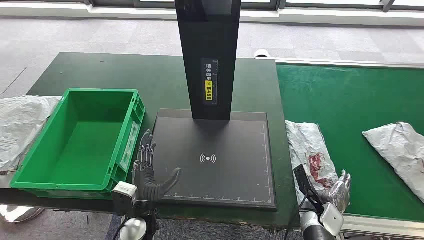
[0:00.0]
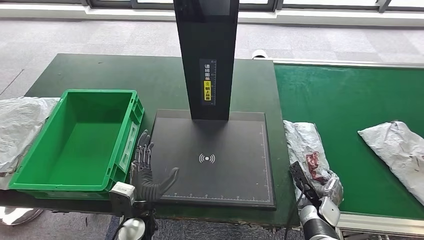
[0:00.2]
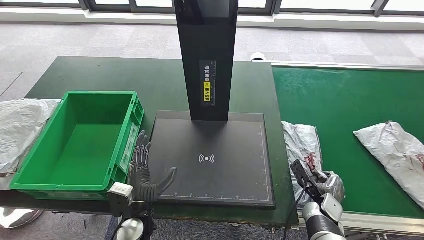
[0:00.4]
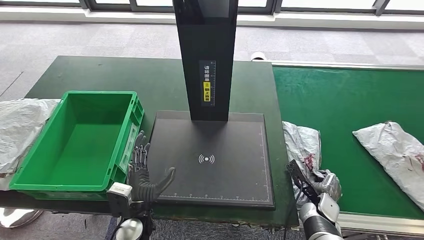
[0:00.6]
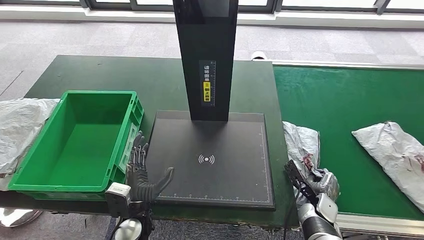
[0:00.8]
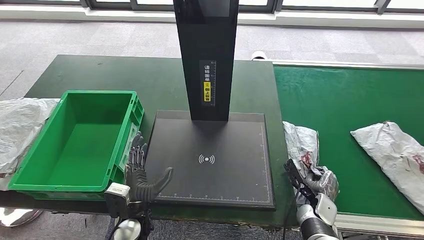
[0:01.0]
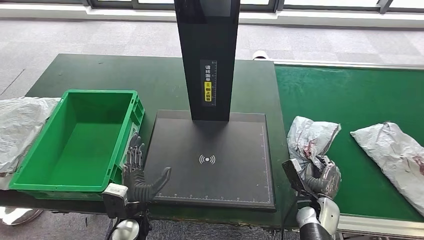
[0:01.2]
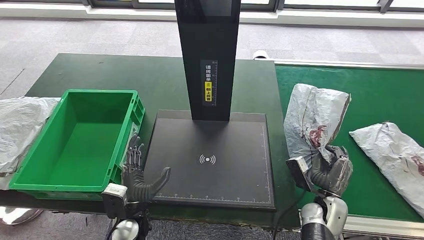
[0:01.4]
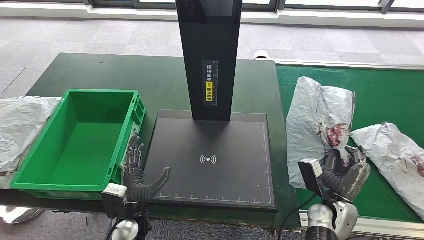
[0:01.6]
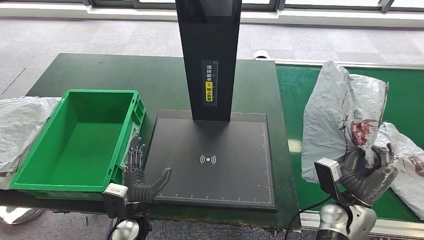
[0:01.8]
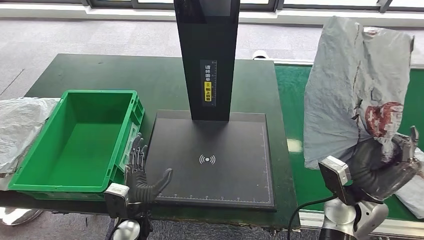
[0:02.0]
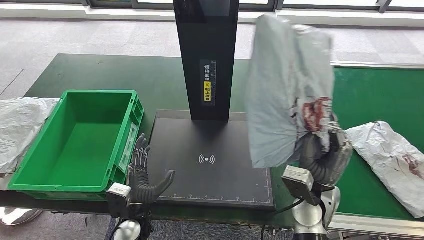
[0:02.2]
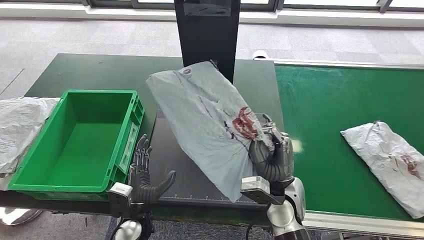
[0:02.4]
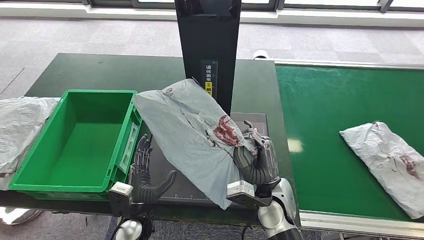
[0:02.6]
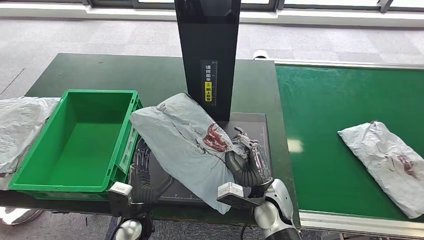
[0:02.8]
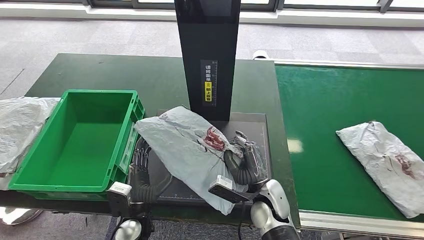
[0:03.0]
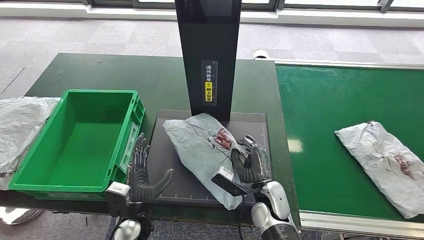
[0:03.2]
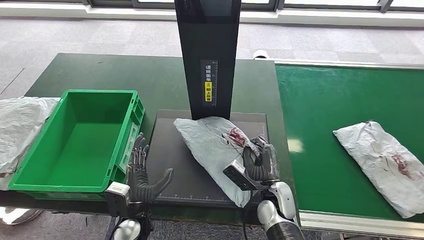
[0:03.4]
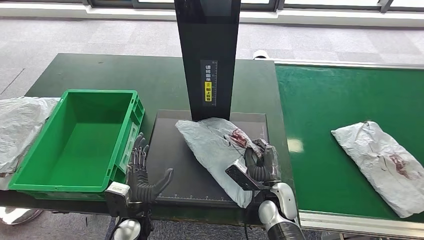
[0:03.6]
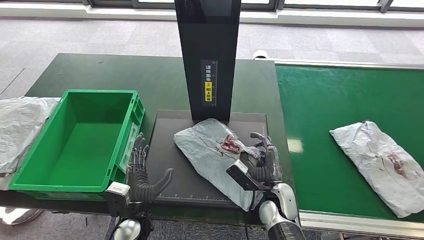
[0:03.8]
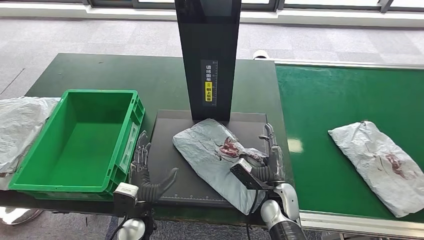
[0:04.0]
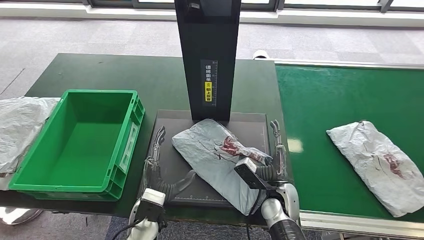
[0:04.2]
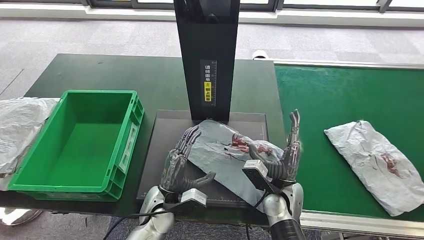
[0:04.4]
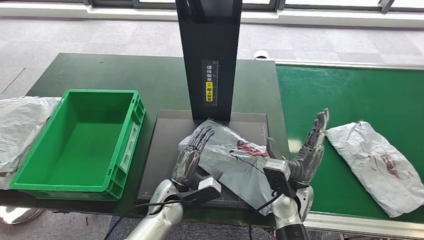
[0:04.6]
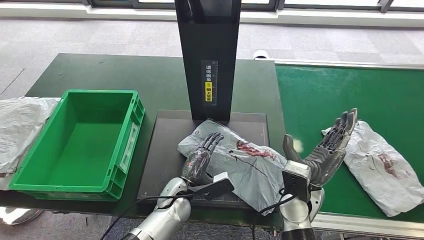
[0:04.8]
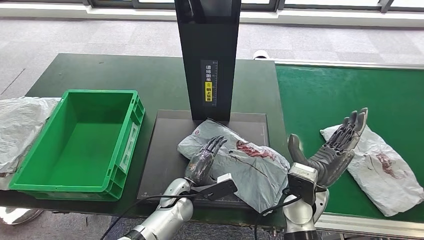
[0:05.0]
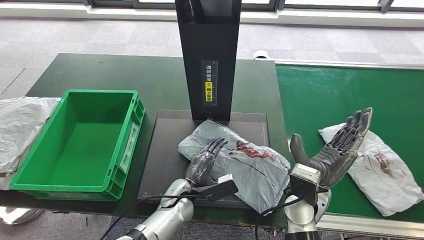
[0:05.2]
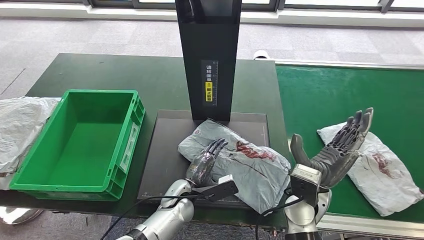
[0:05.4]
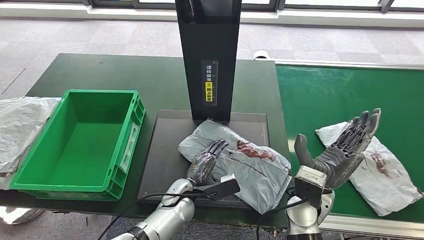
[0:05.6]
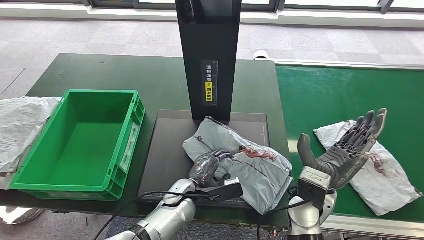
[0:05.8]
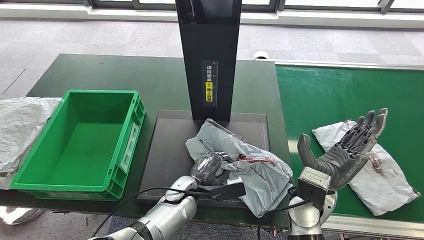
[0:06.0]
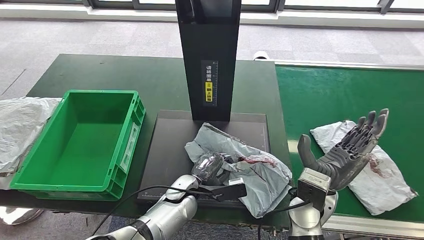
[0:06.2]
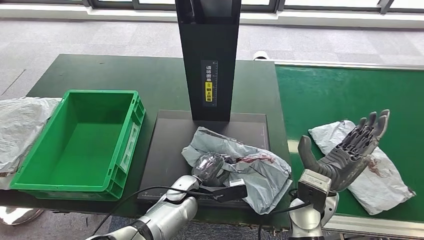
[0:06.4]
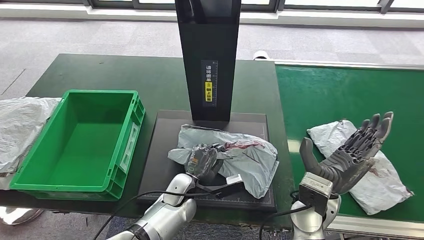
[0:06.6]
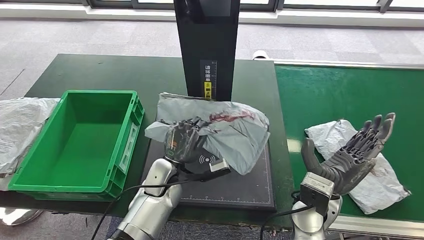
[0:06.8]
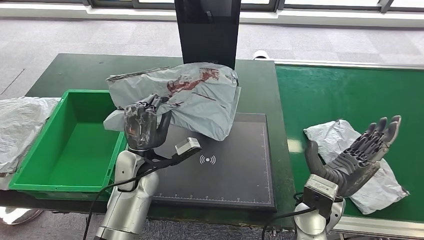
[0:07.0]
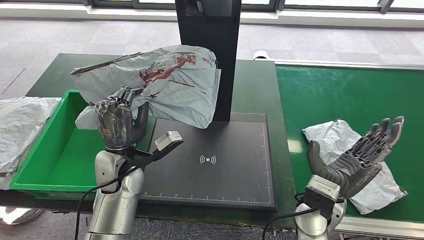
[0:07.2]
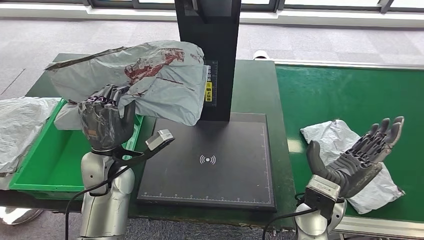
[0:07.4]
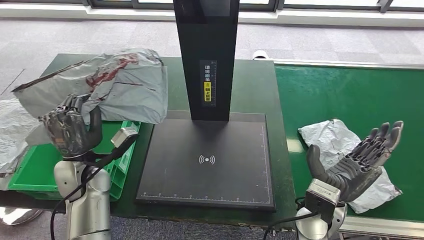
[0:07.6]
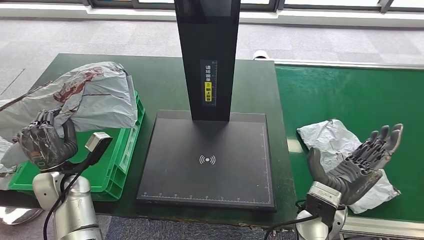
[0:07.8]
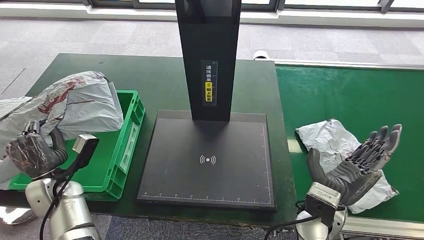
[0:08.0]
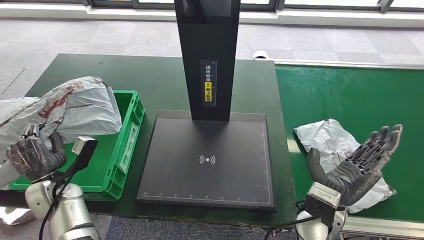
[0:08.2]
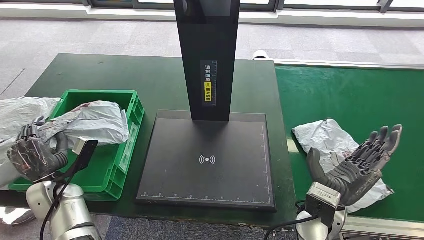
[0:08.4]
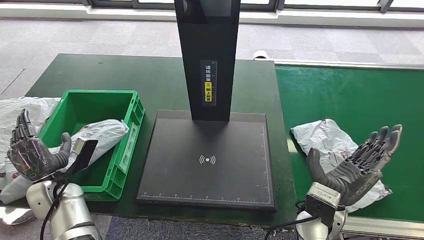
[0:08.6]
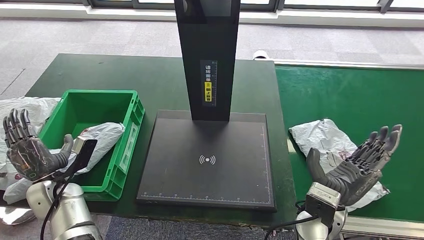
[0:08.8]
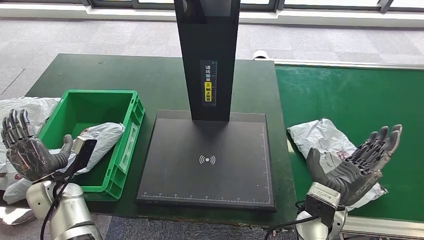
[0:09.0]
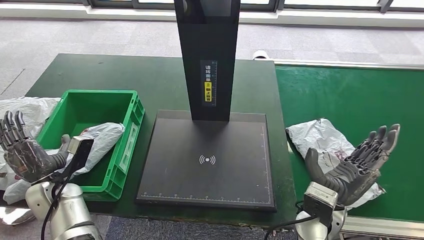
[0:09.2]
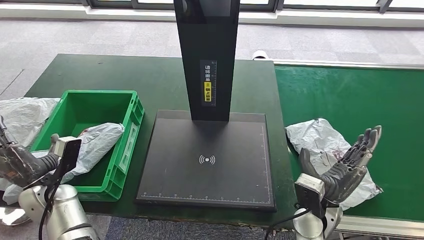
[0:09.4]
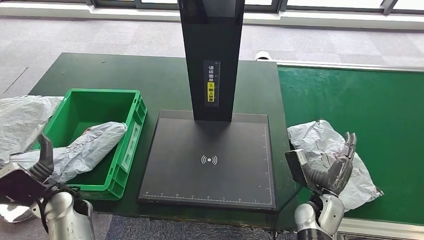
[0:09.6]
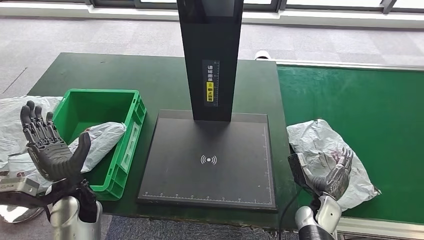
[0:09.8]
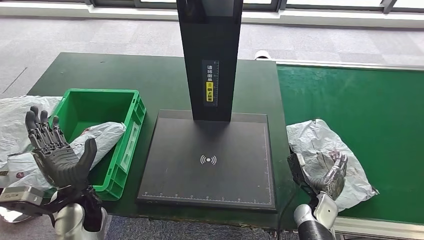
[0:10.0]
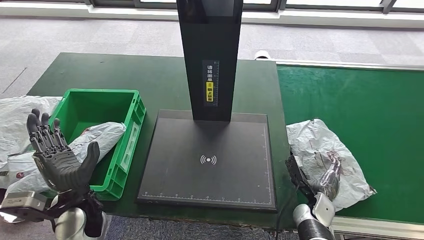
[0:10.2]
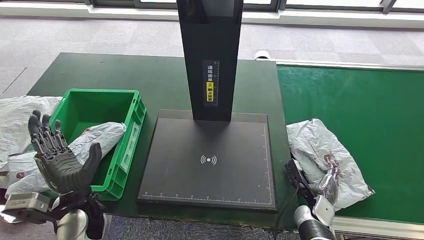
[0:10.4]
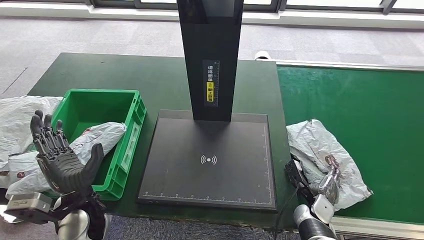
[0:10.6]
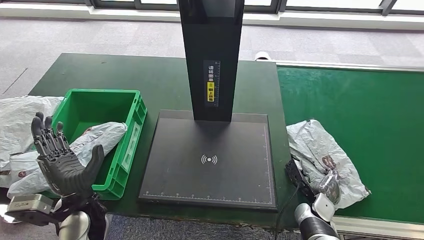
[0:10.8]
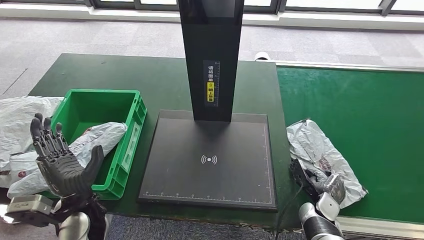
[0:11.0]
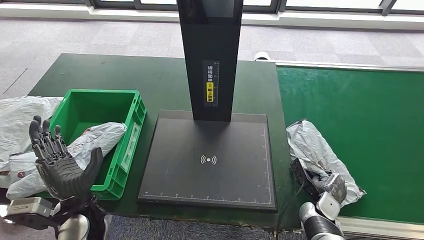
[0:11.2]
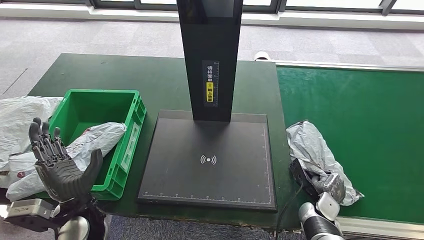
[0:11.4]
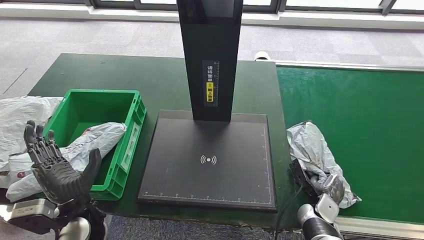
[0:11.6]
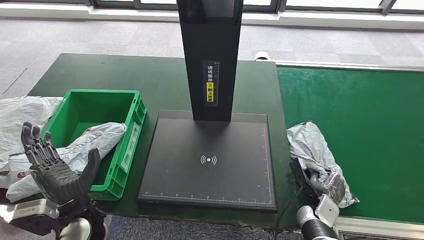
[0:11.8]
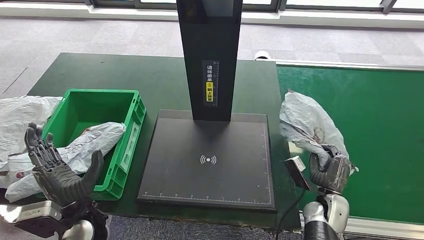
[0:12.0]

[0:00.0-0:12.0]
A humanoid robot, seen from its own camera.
Step, 0:00.0 to 0:02.0: Take the parcel off the conveyor belt.
Step, 0:02.2 to 0:05.4: Place the parcel onto the inbound machine.
Step, 0:05.6 to 0:08.0: Pick up the parcel from the inbound machine.
Step, 0:08.2 to 0:10.2: Put the parcel inside the courier box.
0:03.0 to 0:04.4: The left hand shifts by about 5 cm.

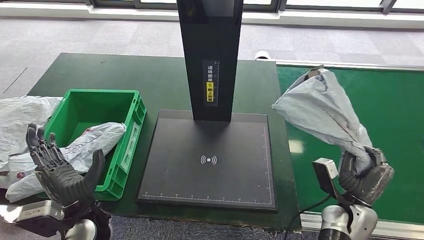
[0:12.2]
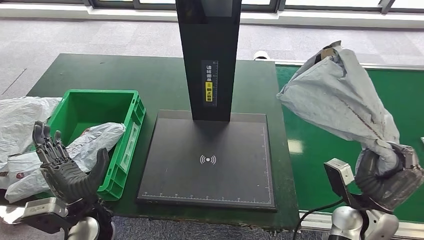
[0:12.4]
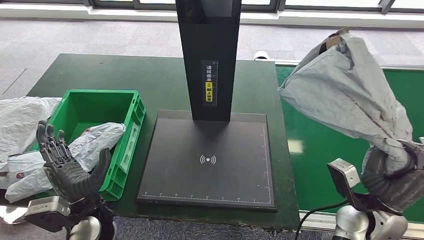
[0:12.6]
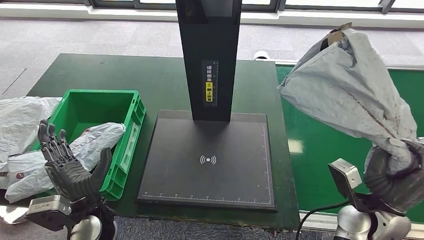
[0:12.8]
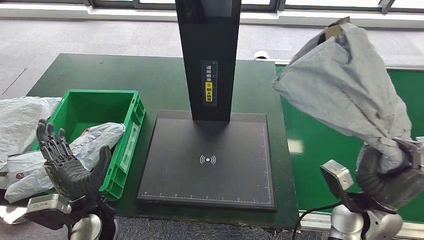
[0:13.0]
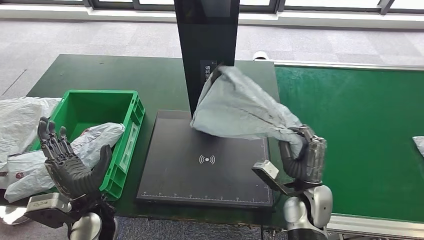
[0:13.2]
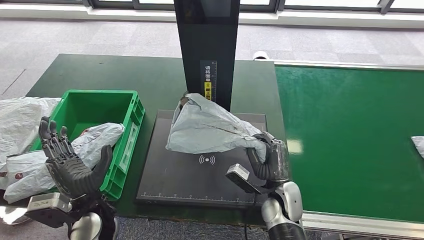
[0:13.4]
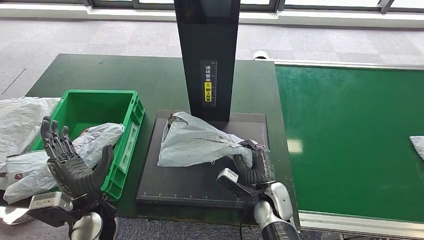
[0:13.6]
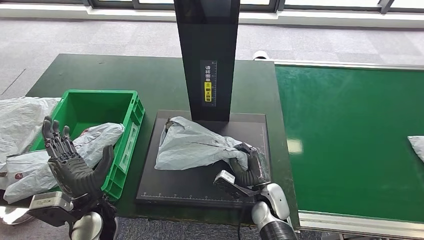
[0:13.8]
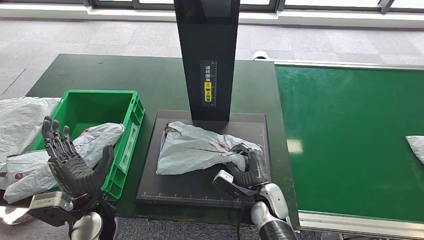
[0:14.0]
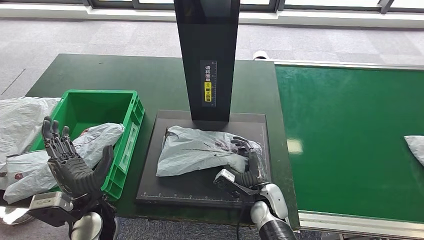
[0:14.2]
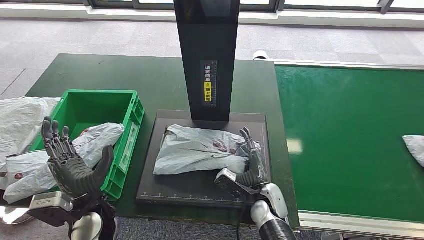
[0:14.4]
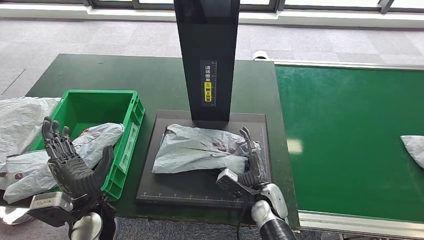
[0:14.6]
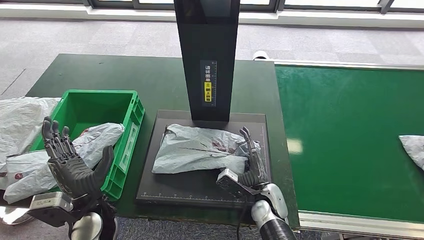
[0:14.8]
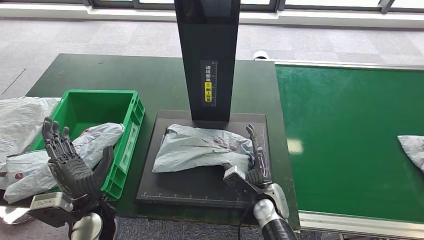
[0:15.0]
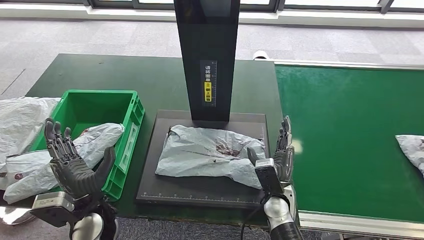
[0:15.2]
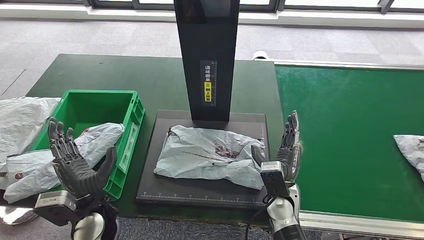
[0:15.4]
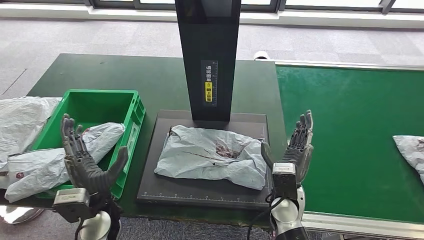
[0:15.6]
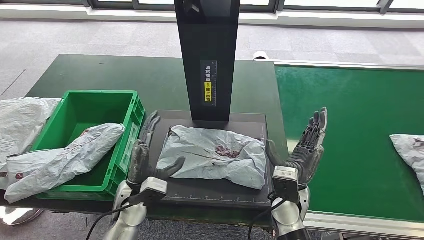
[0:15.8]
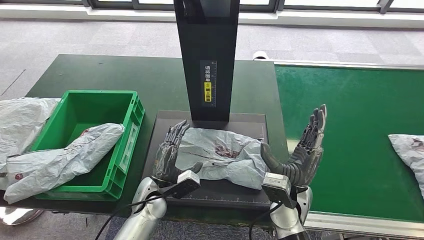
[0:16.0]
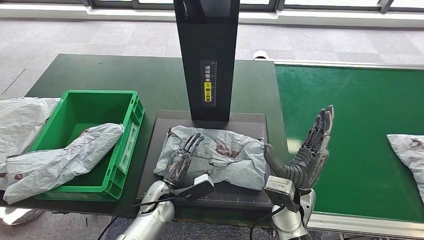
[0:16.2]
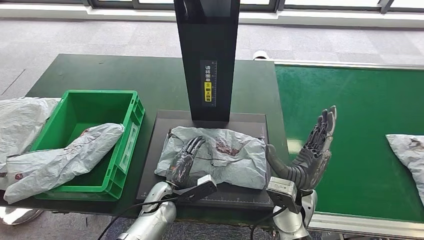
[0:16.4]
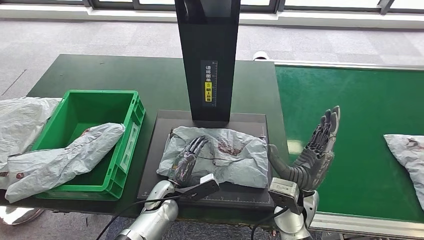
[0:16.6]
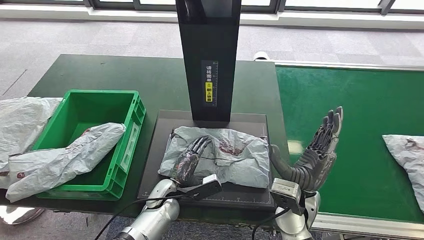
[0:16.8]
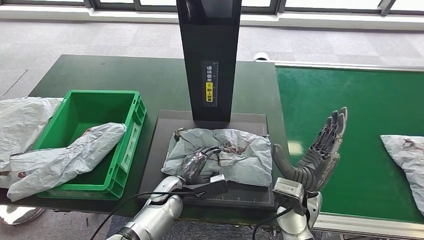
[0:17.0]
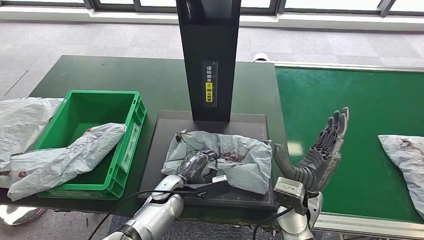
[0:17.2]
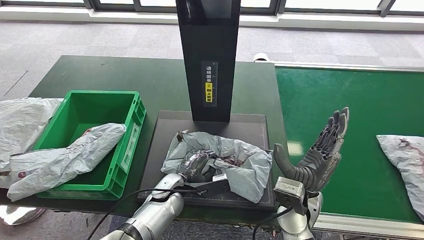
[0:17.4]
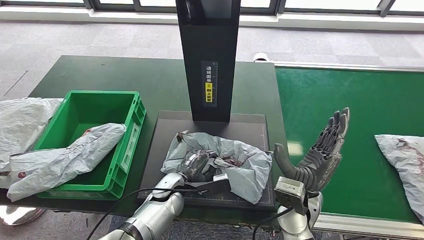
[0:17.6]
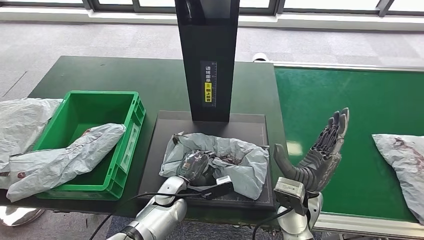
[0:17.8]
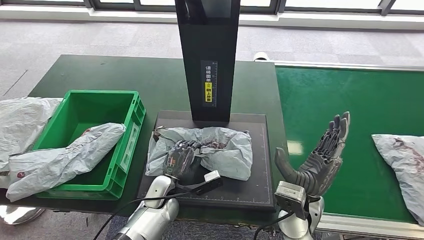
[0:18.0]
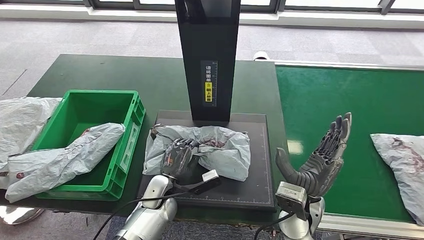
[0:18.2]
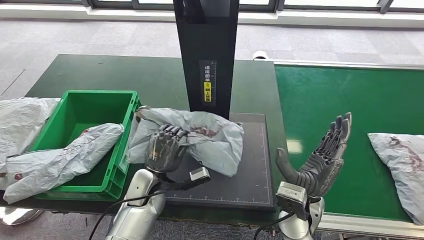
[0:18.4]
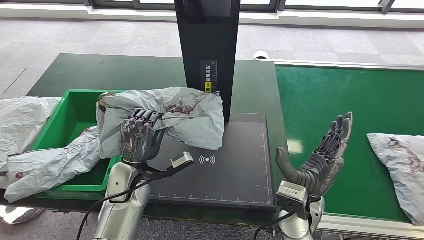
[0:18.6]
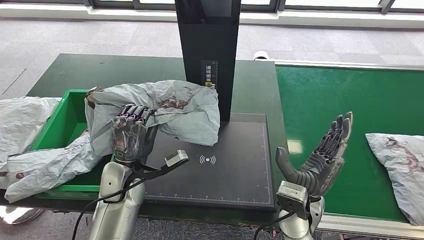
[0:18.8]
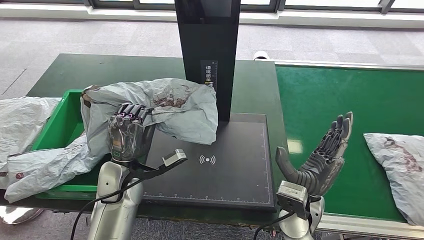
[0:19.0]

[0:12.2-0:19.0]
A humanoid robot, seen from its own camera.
Step, 0:12.6 to 0:17.0: Place the parcel onto the inbound machine.
0:13.6 to 0:15.0: The hands make only small movements.
0:15.0 to 0:16.2: The right hand goes approximately 10 cm upward. The left hand moves to the right, downward and forward, about 15 cm.
